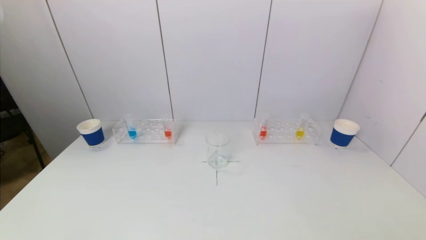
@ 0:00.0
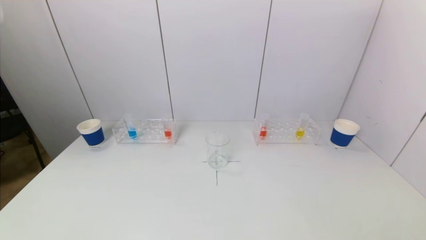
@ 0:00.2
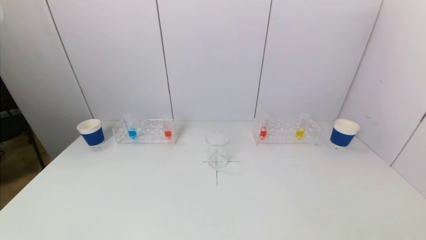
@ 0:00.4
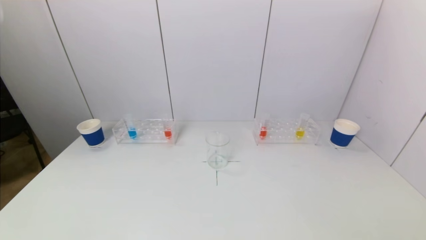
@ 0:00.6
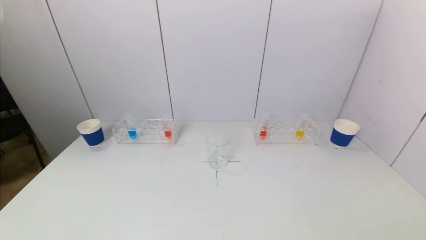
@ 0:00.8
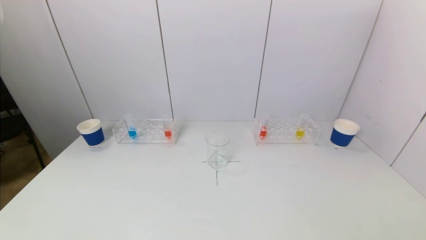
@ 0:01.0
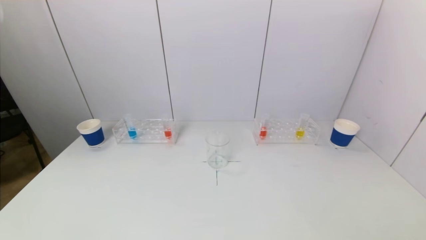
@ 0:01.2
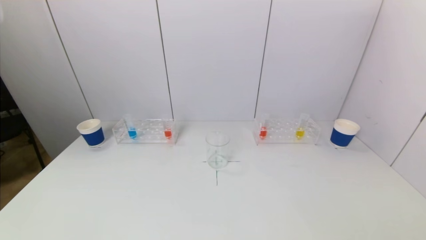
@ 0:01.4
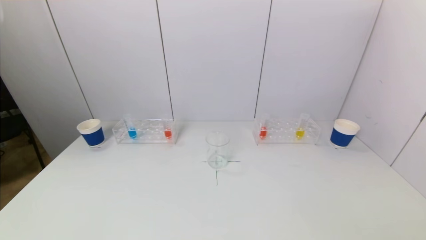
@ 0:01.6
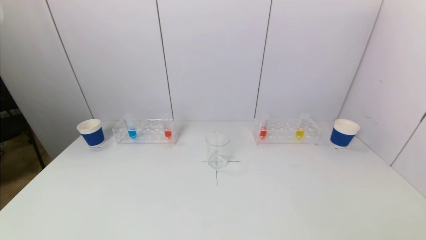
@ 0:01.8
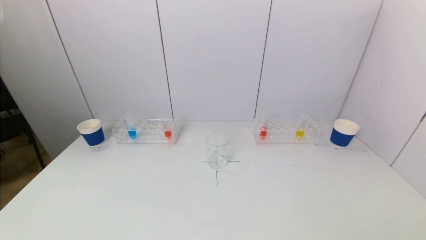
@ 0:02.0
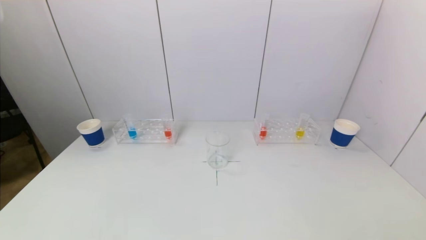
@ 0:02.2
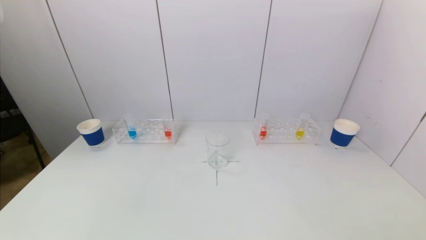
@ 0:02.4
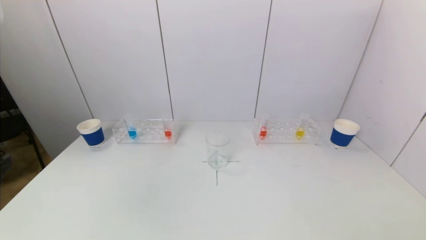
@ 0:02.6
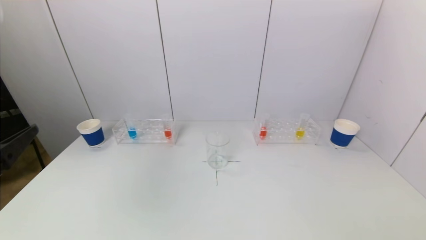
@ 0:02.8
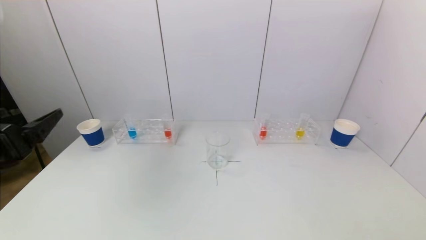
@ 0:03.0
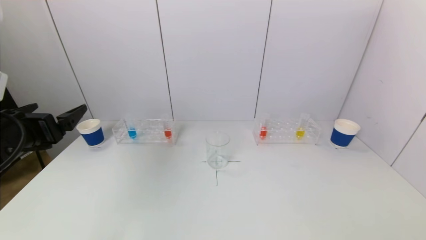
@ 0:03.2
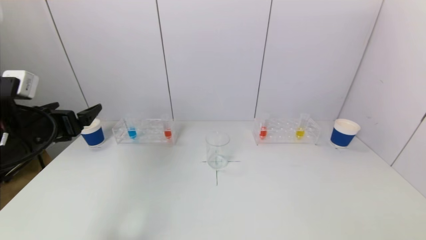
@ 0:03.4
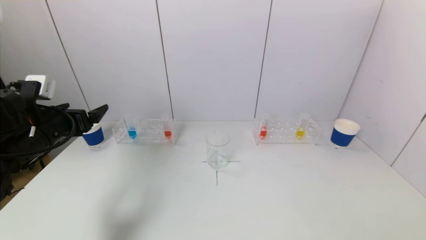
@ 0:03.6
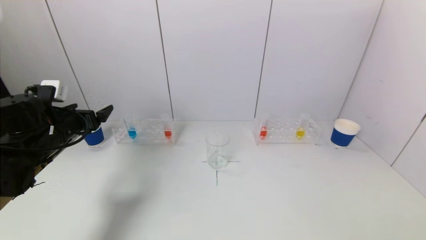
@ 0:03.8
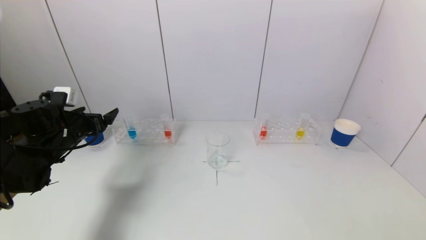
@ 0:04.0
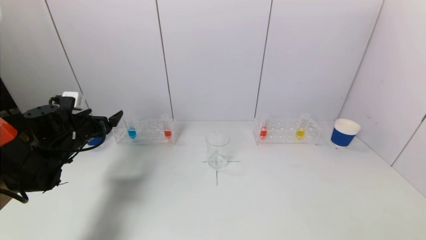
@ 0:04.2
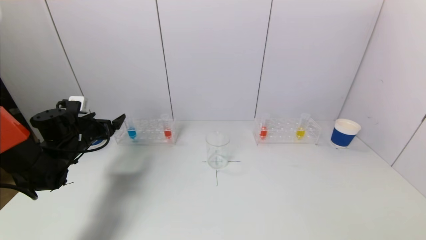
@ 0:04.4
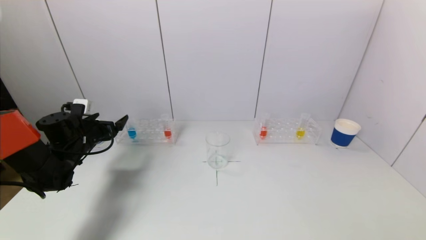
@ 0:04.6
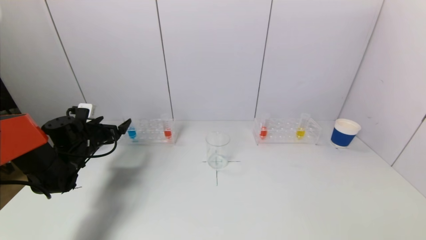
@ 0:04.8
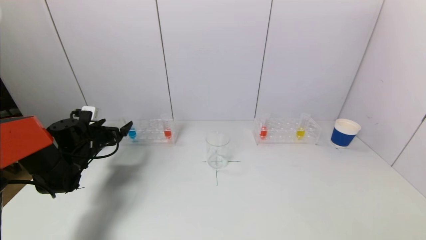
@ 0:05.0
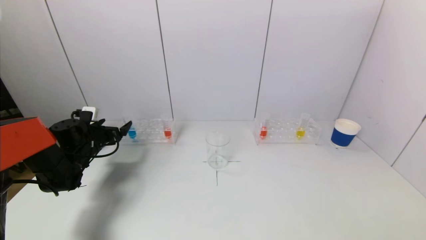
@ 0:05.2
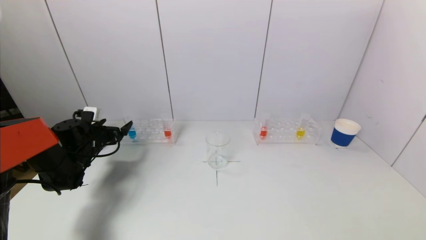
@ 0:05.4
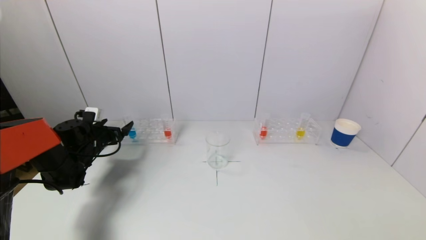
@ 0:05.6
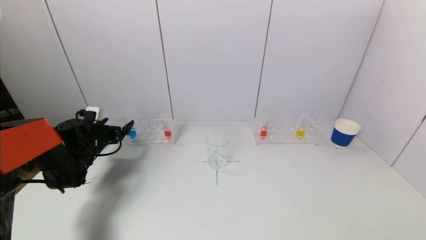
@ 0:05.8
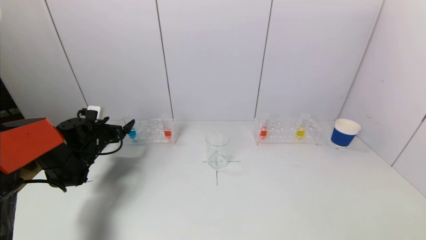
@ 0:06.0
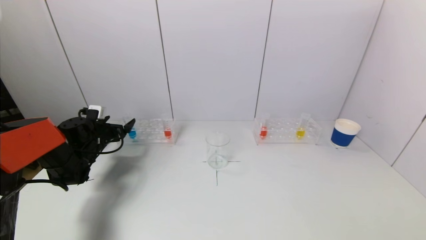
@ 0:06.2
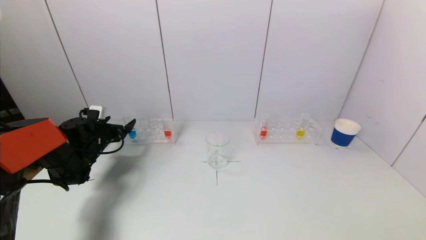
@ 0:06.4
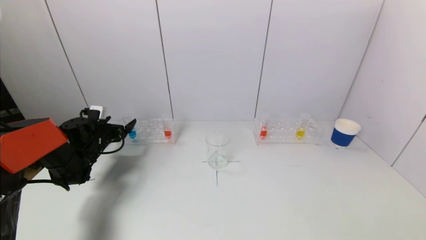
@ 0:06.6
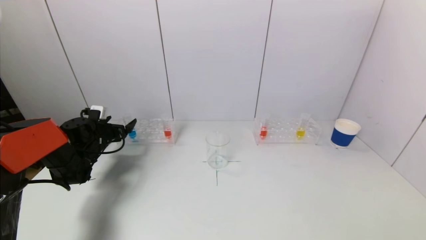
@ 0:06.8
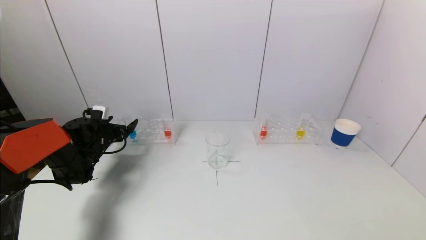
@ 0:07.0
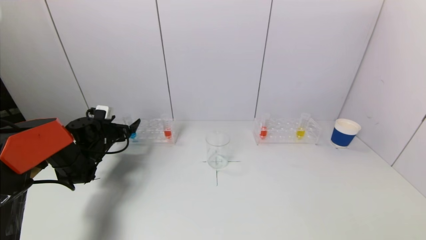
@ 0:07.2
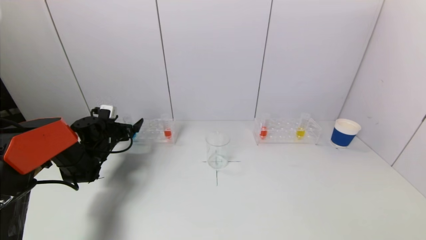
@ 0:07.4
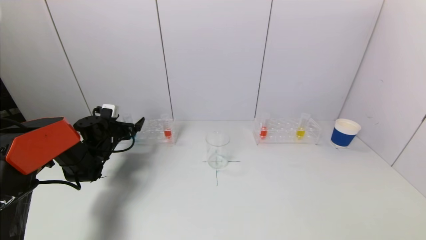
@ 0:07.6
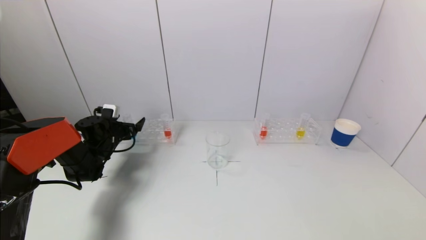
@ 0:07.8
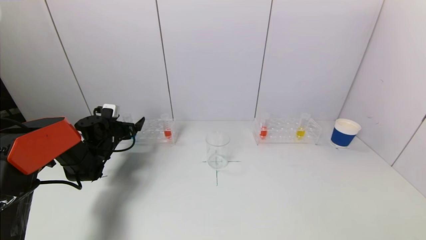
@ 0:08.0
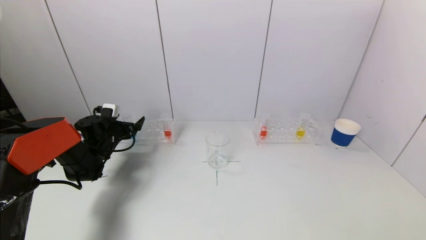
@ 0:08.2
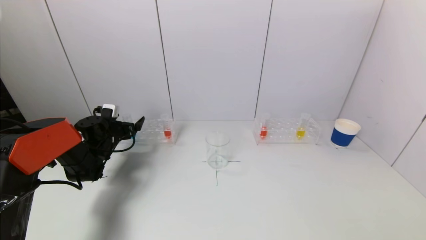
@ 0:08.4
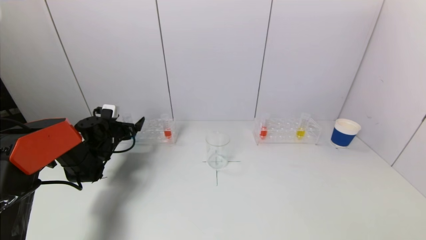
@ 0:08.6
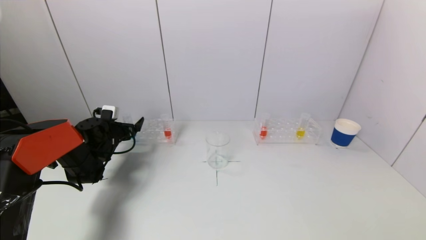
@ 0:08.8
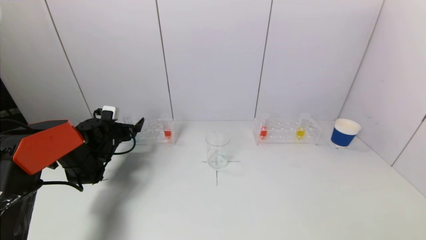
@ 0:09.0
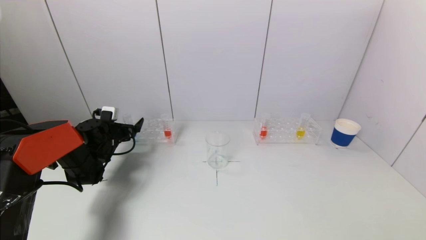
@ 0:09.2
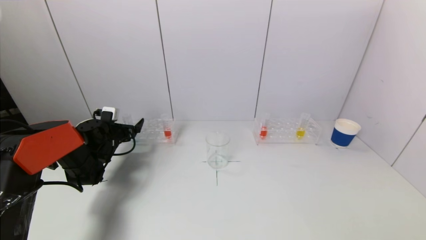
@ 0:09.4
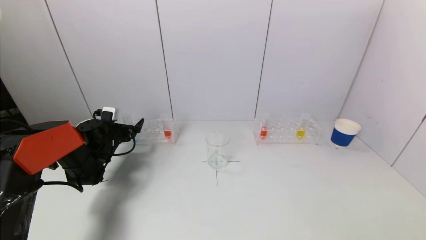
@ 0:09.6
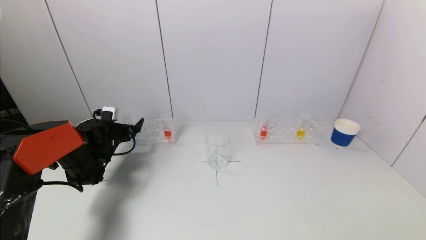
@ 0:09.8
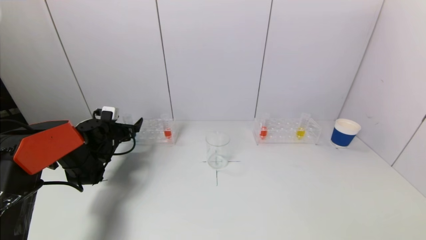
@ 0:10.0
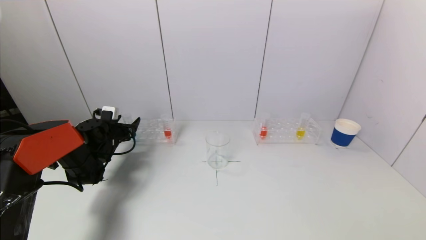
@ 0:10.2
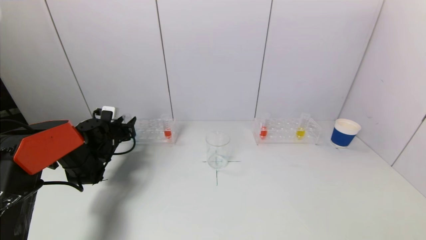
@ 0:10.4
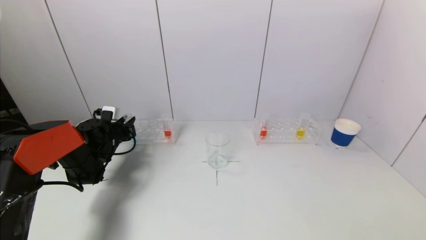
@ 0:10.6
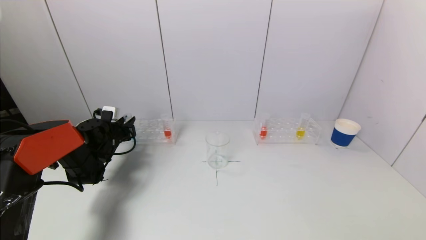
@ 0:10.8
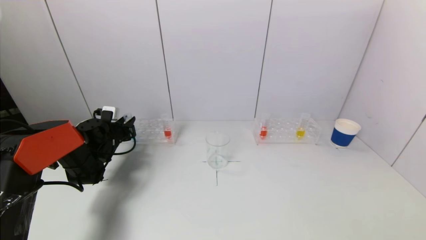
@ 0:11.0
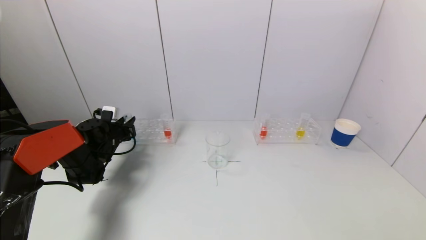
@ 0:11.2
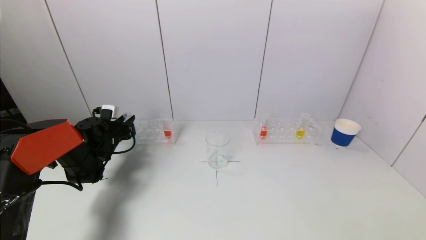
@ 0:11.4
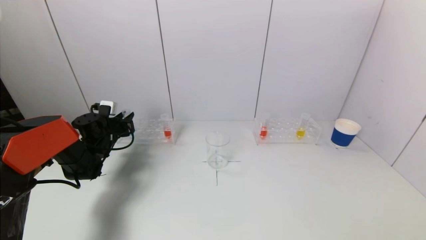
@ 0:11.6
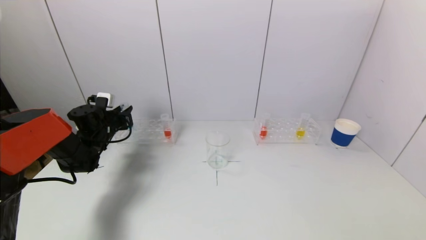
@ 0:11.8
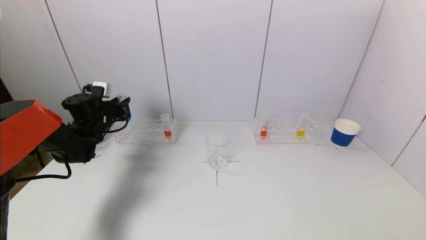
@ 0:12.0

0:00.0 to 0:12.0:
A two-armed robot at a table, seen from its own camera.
Task of the whole recording: pick up a test tube with pigment on left test tube rack and a test tube with pigment on right test tube rack by grippers and pour them into the beaker.
Step, 0:00.0 to 0:11.0: Grasp the blue reagent with the left gripper.
0:01.6 to 0:03.0: The left gripper is displaced forward and upward by roughly 20 cm.
0:03.0 to 0:04.4: The left gripper moves forward and downward, approximately 25 cm.
0:04.4 to 0:06.0: The left gripper travels downward and forward by roughly 5 cm.
0:06.0 to 0:07.6: The grippers move only a little.
0:07.6 to 0:09.0: Both grippers stay put.
0:10.4 to 0:12.0: The left gripper moves upward, about 10 cm.

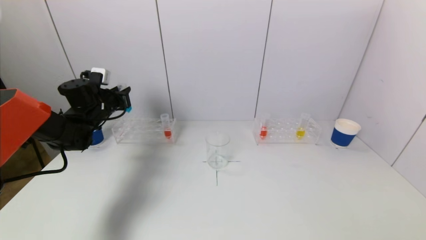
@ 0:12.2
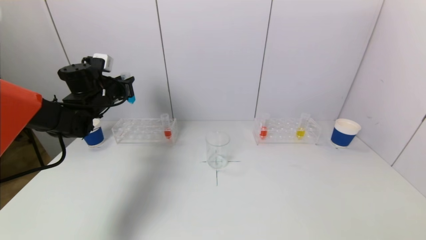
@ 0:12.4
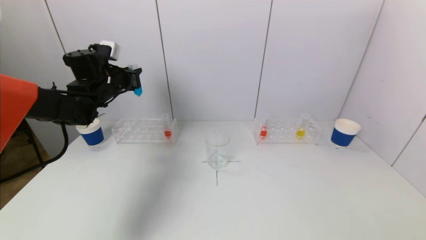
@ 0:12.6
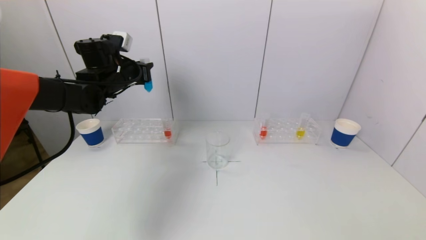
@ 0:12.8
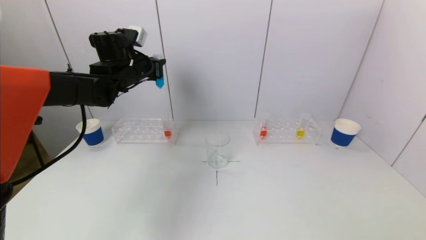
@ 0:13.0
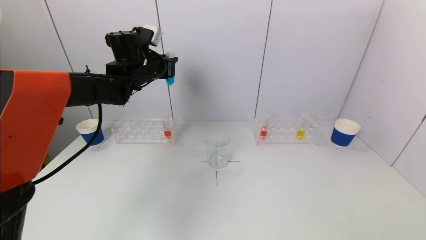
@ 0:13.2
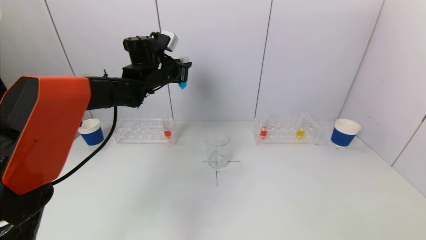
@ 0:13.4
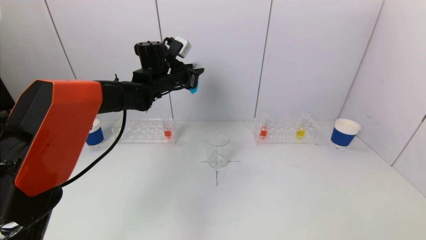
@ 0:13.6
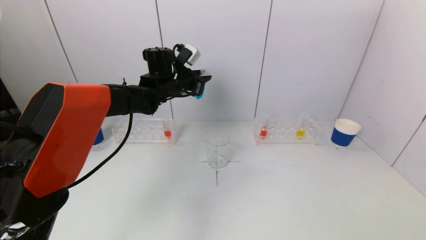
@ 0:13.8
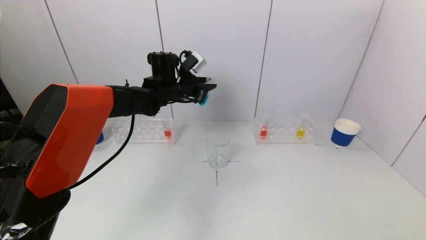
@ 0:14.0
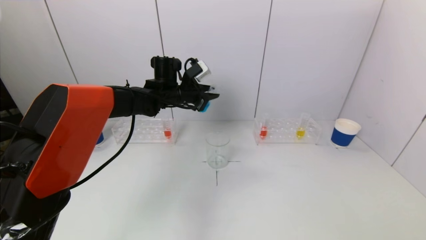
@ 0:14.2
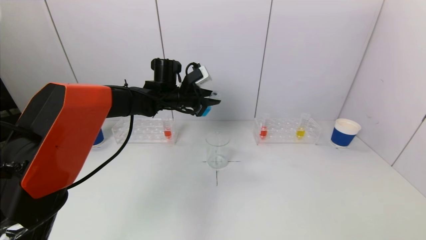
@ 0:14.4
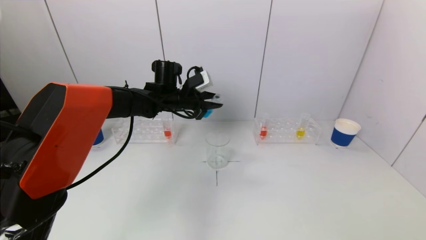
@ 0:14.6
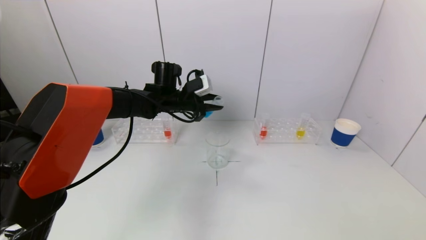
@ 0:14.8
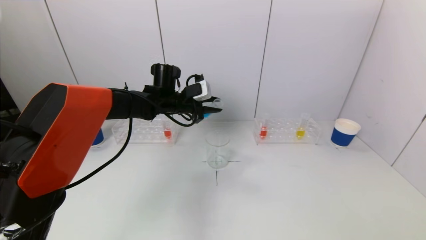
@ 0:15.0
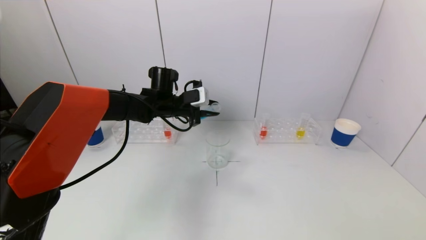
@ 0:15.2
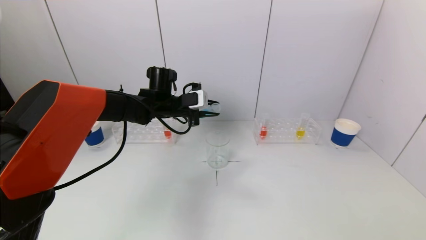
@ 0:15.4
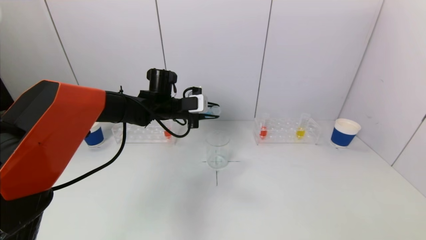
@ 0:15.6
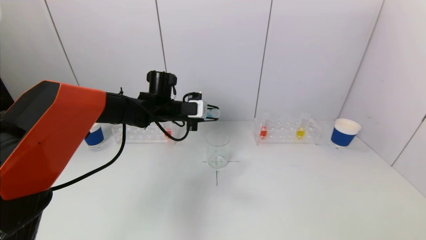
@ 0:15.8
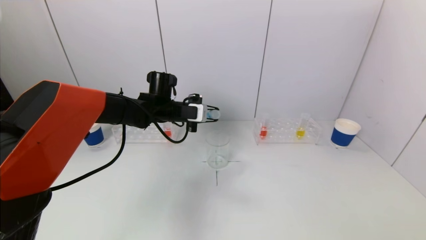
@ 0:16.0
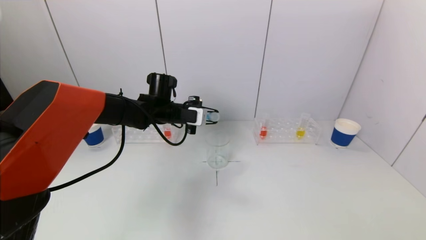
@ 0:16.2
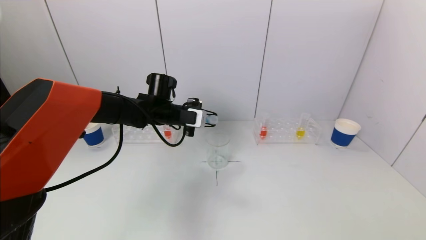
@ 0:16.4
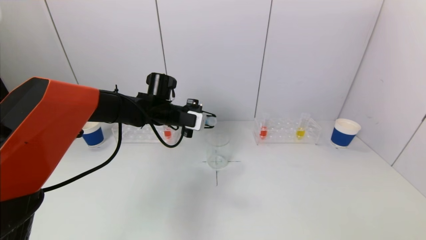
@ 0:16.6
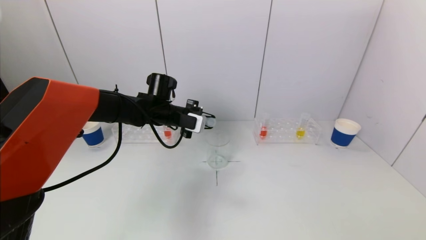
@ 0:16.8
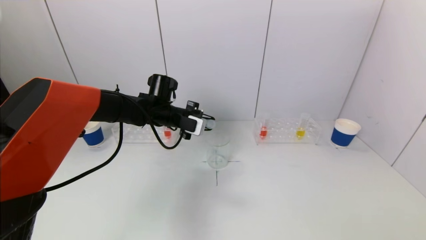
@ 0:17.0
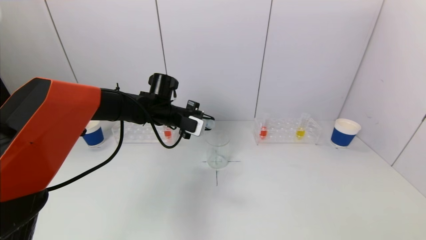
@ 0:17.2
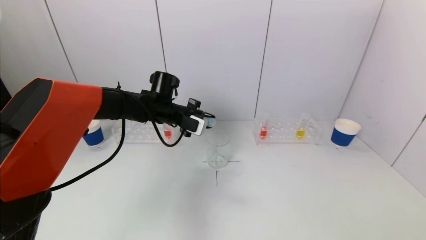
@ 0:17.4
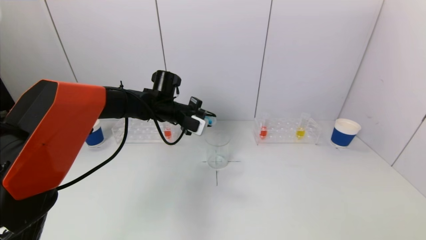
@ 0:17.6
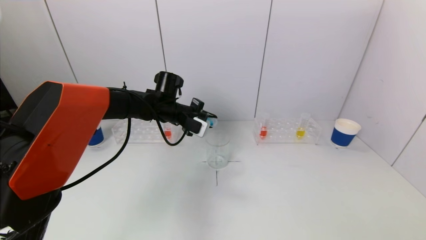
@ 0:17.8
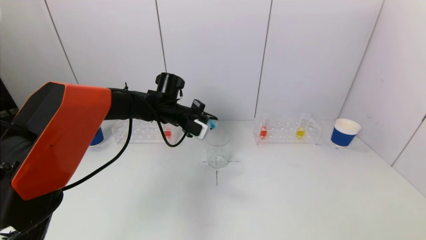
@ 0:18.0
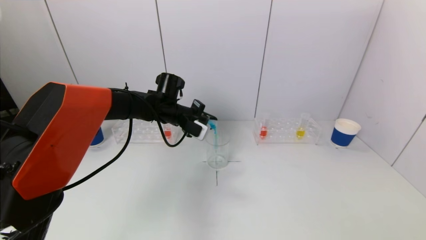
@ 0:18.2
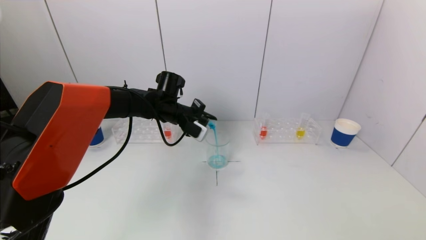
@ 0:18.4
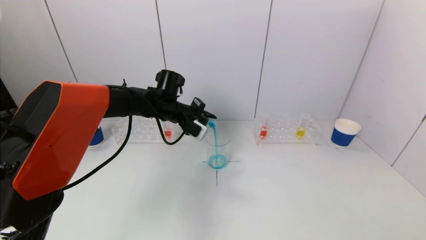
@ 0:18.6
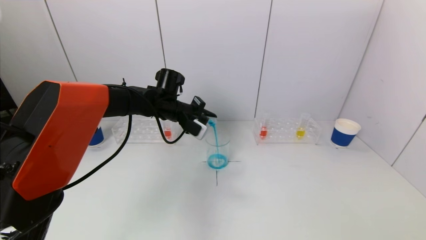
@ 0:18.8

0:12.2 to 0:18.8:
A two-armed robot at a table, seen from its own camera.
Task of the whole recording: pick up a test tube with pigment on left test tube rack and a test tube with pigment on right test tube rack by grippers and pour them into the beaker.
0:12.2 to 0:13.8: The left gripper moves to the right, roughly 20 cm.
0:13.8 to 0:15.4: The left gripper changes place by approximately 5 cm.
0:17.2 to 0:18.8: The grippers move only a little.
